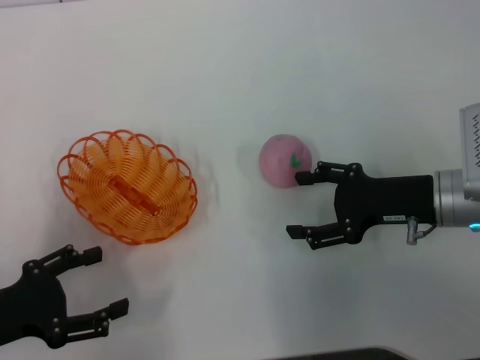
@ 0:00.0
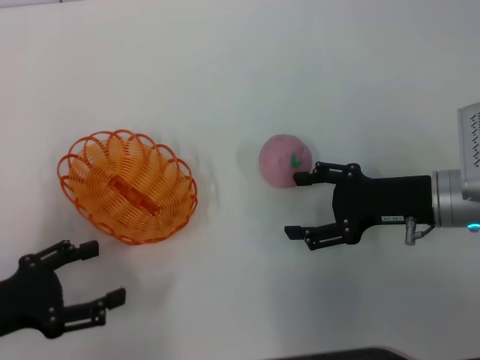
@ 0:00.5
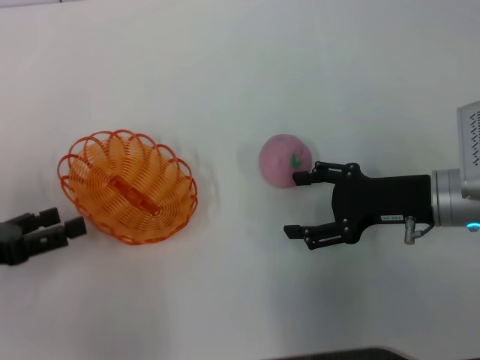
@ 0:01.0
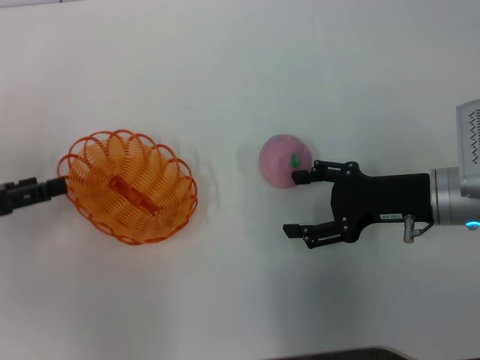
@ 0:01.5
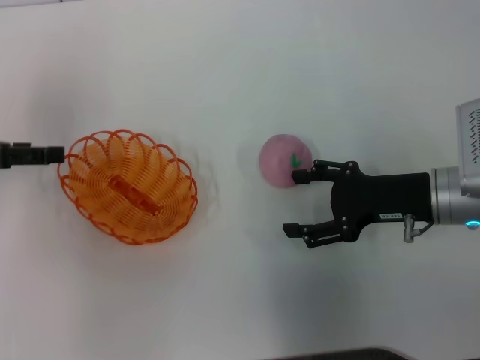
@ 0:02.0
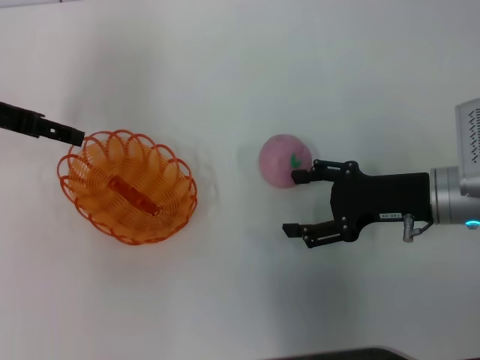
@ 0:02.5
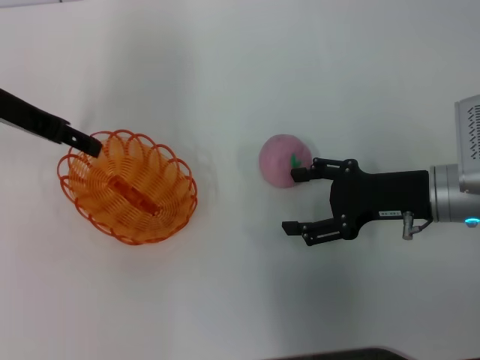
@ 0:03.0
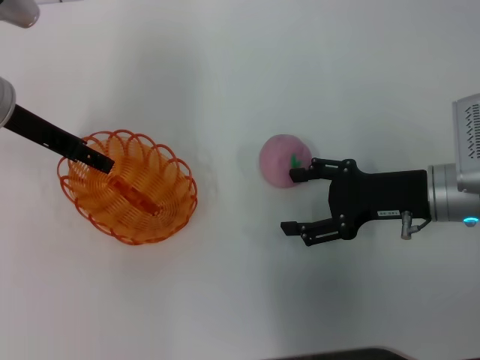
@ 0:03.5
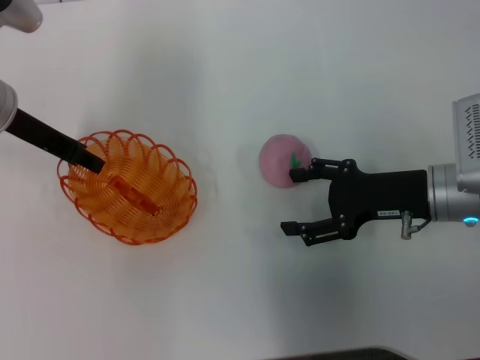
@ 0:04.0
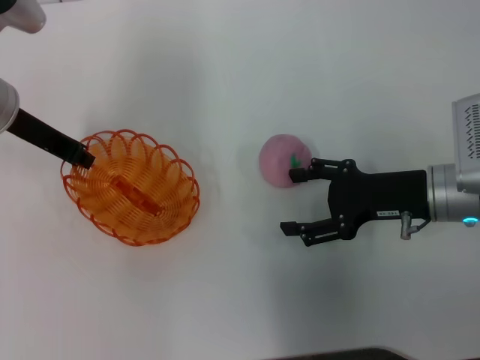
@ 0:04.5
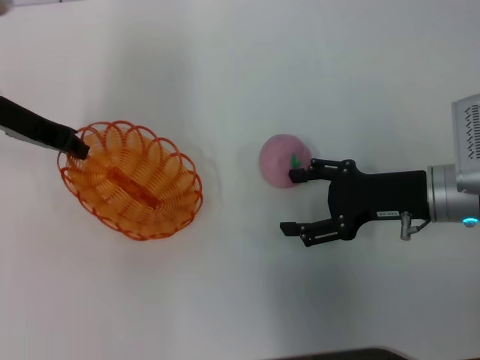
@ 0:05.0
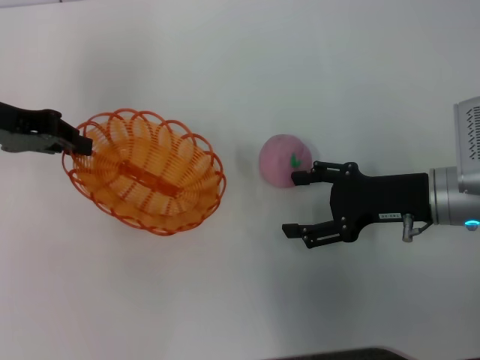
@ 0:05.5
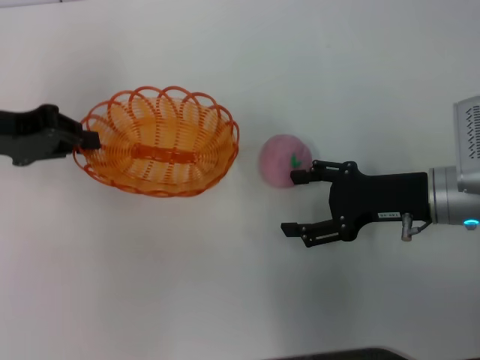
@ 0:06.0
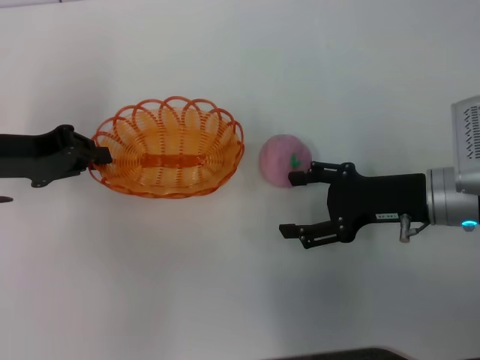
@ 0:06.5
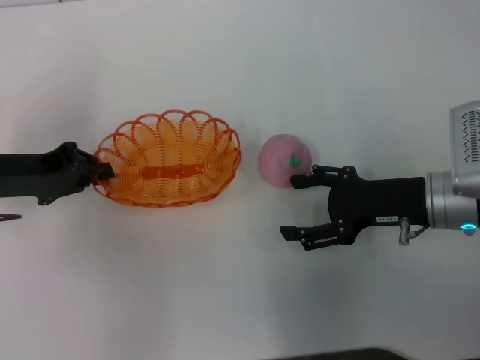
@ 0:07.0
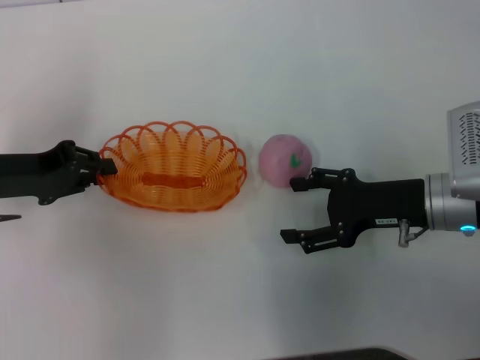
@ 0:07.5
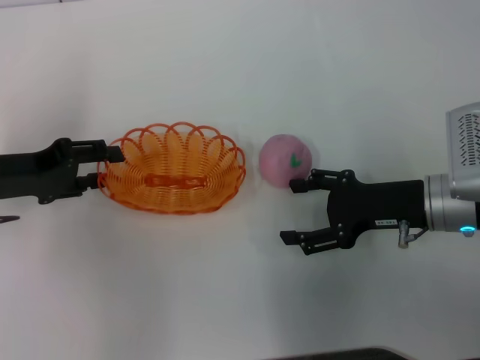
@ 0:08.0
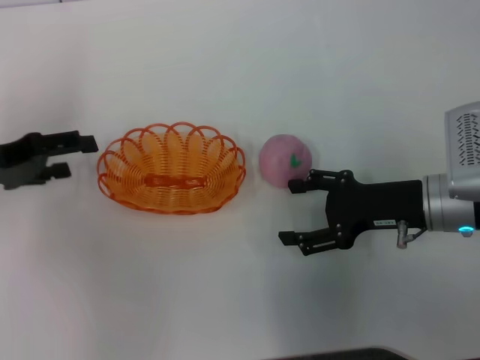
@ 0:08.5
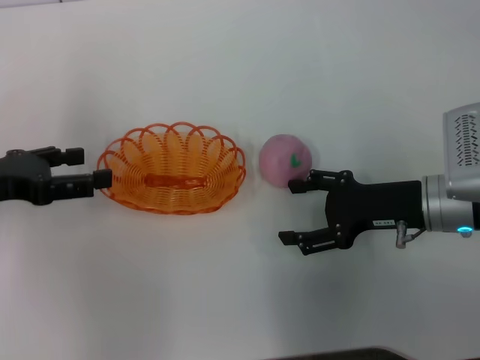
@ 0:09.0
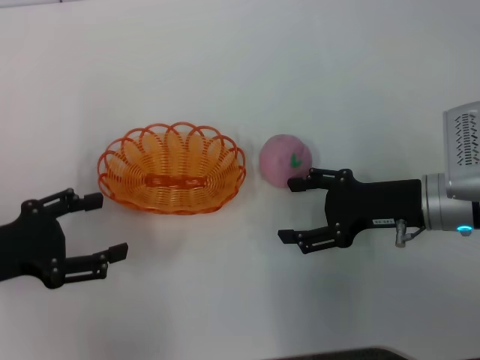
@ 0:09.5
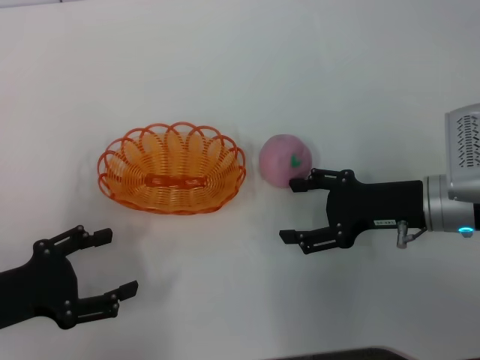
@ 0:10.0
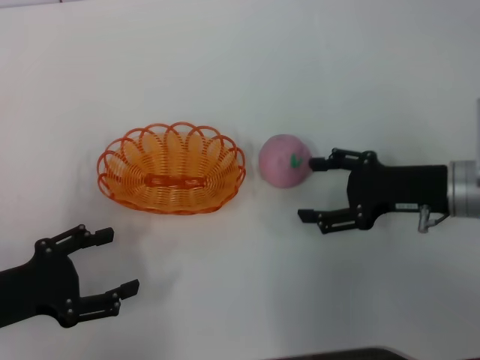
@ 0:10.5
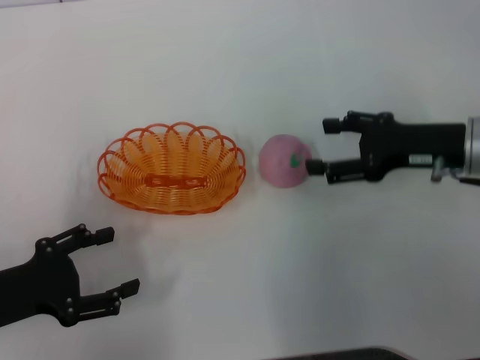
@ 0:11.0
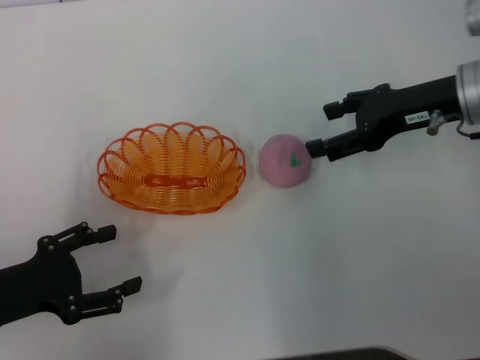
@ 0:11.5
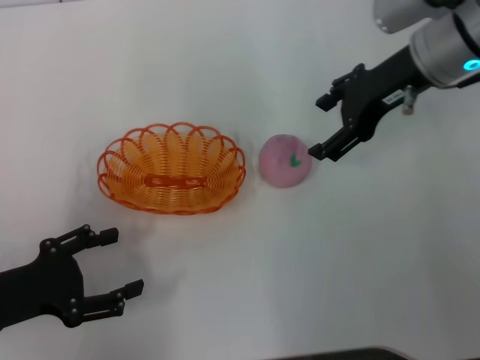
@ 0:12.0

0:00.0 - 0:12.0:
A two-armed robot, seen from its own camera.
Step, 0:00.0 - 0:05.0: Pick up the basket with the left gripper.
Step, 0:05.5 - 0:08.5: Place the basket in the center of view with the left gripper.
0:00.0 - 0:02.0: The left gripper is displaced forward and upward by roughly 15 cm.
0:02.0 - 0:04.0: The left gripper travels to the right and forward by approximately 10 cm.
0:04.0 - 0:06.0: The left gripper moves to the left, some 5 cm, and closes up.
0:06.0 - 0:08.0: The left gripper is displaced downward by some 5 cm, and opens.
0:08.0 - 0:10.0: The left gripper shifts approximately 10 cm backward, and opens.
0:10.0 - 0:12.0: The right gripper moves upward and forward, about 15 cm.

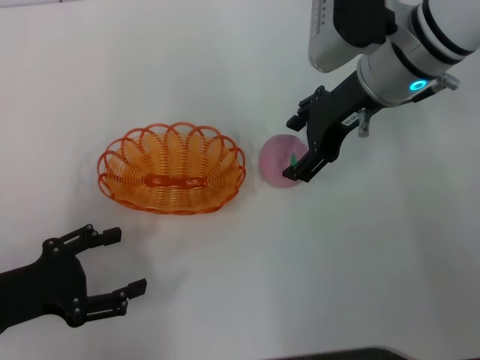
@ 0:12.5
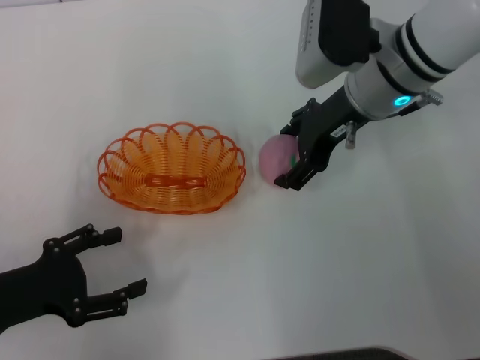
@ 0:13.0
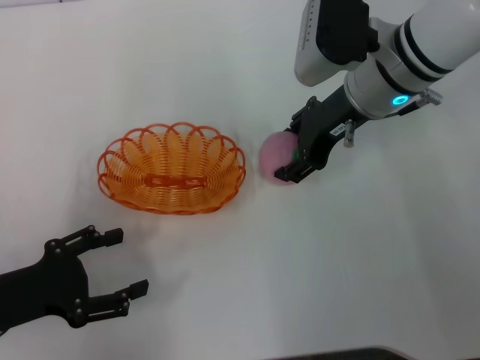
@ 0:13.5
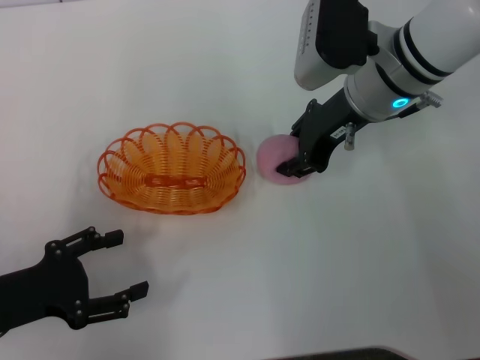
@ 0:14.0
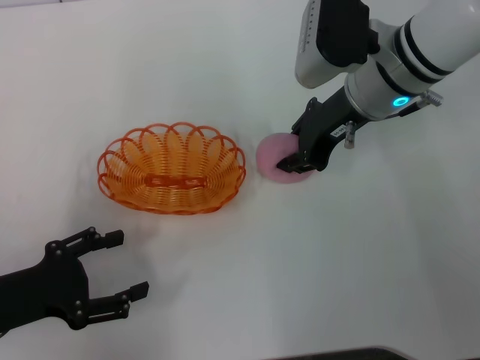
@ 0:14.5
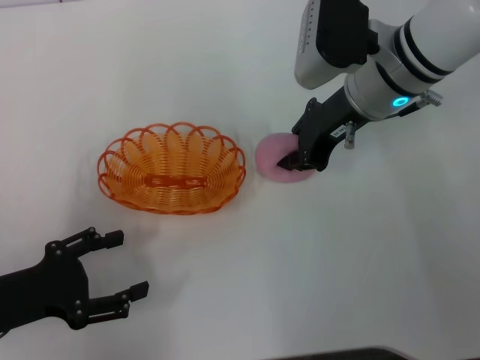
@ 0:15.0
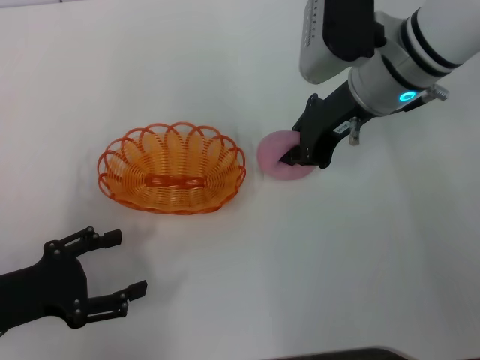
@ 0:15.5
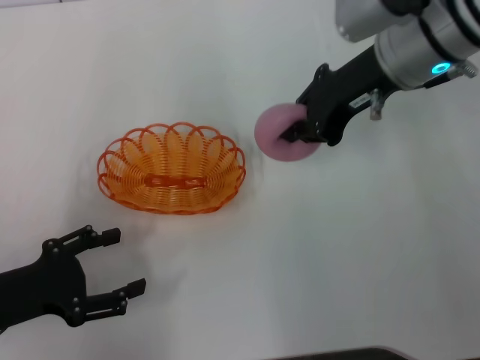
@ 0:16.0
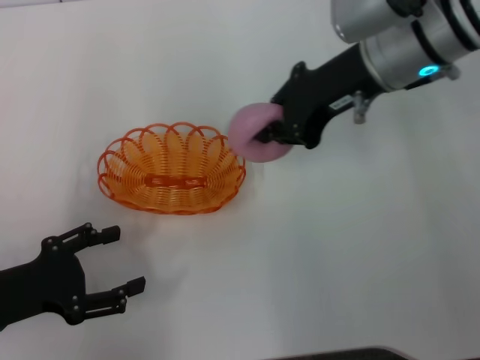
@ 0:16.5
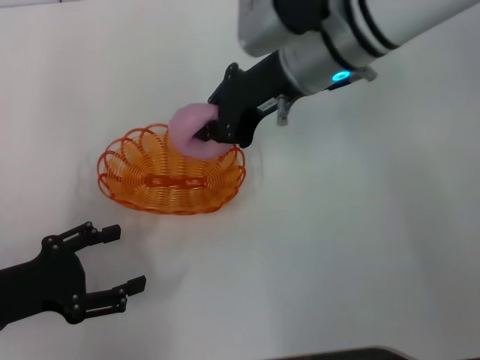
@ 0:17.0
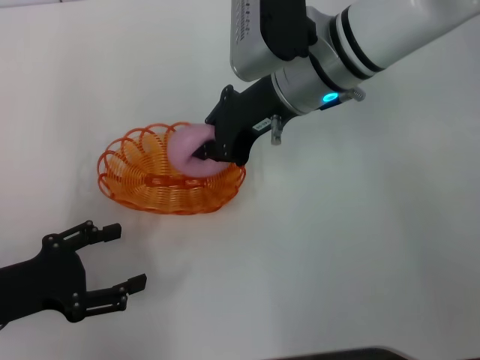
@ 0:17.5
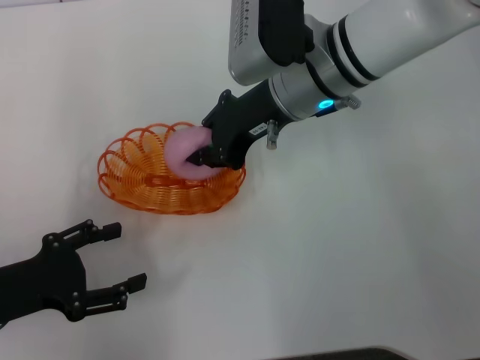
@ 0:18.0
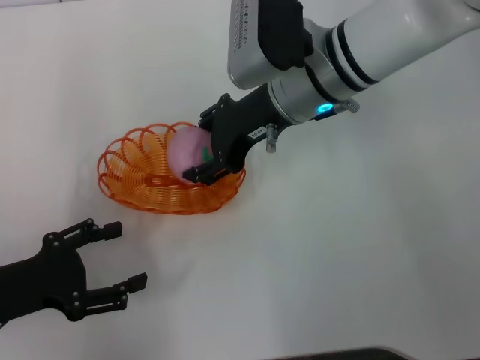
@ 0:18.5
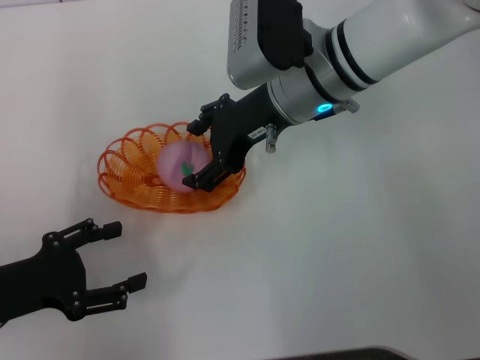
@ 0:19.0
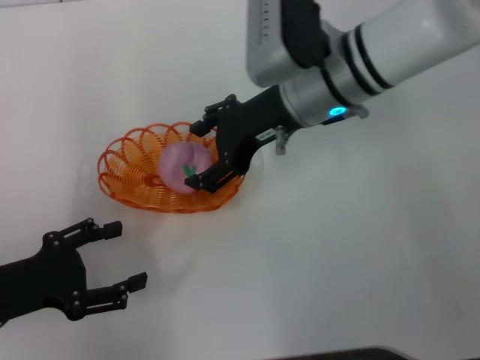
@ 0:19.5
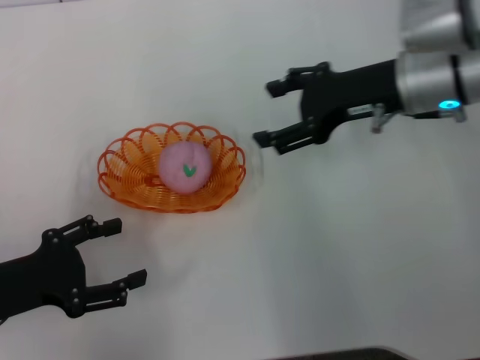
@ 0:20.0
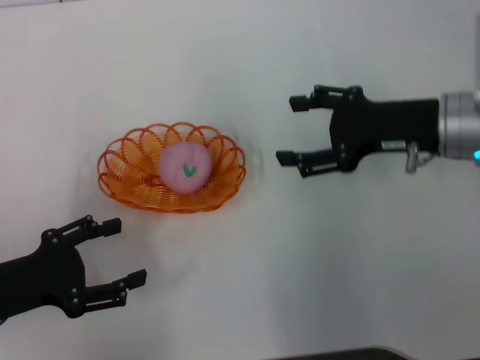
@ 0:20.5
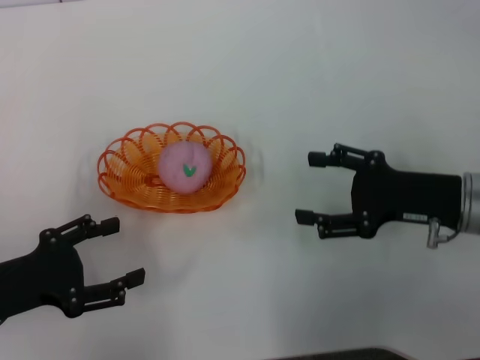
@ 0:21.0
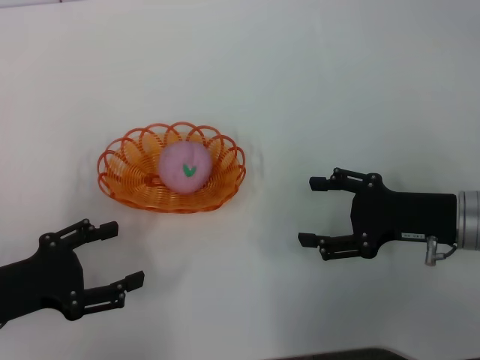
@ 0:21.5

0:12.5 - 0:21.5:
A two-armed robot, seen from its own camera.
Step, 0:12.5 - 0:15.5: Pick up the peach with the right gripper.
Step, 0:16.0 - 0:20.0: Place the peach into the basket with the right gripper.
0:12.5 - 0:14.5: The right gripper closes up.
0:14.5 - 0:17.0: The right gripper is displaced to the left by approximately 5 cm.
0:17.0 - 0:19.5: The right gripper opens its fingers.
0:19.5 - 0:21.5: The right gripper moves to the right, backward and downward, about 20 cm.

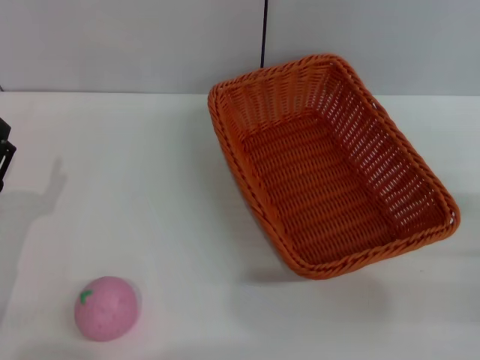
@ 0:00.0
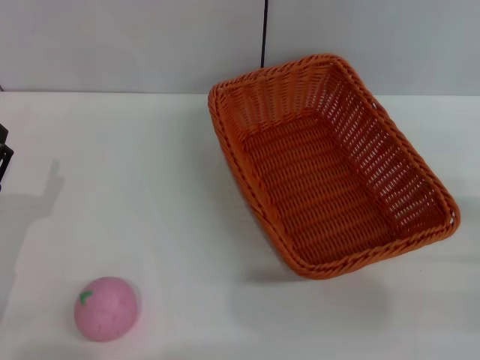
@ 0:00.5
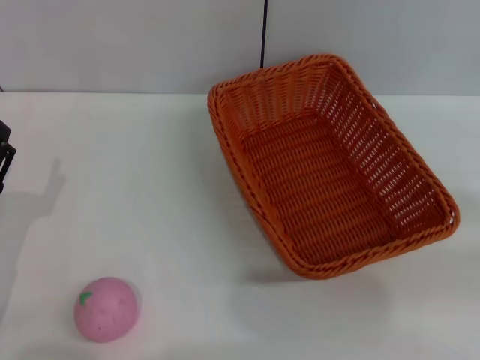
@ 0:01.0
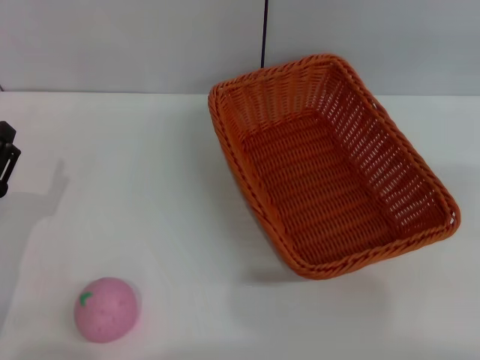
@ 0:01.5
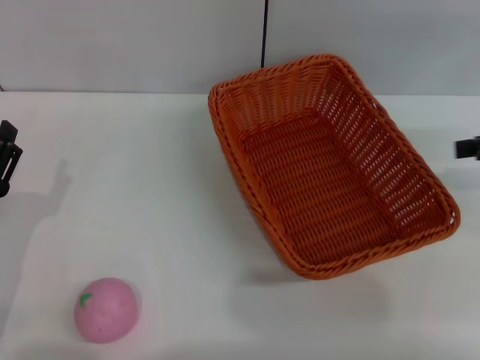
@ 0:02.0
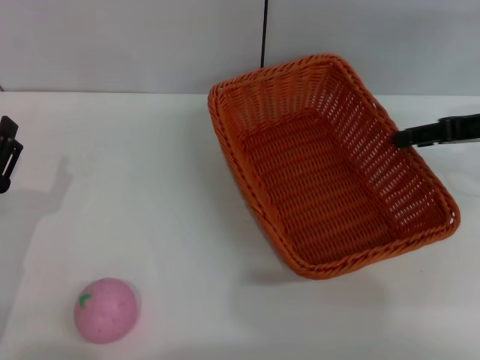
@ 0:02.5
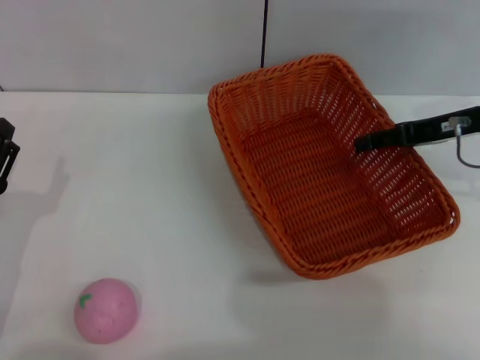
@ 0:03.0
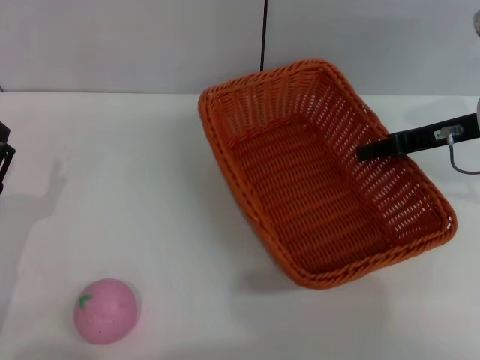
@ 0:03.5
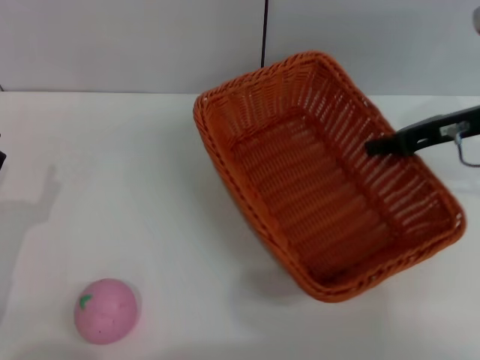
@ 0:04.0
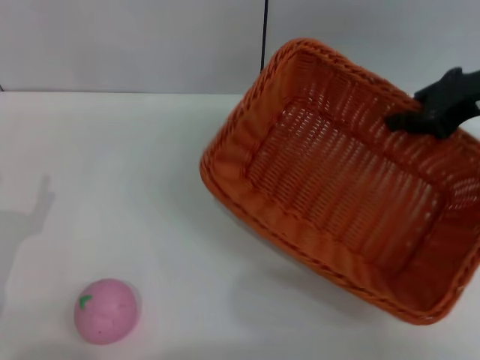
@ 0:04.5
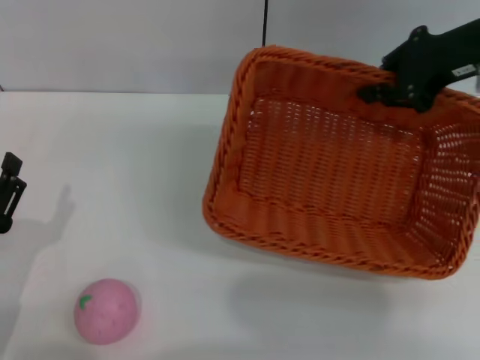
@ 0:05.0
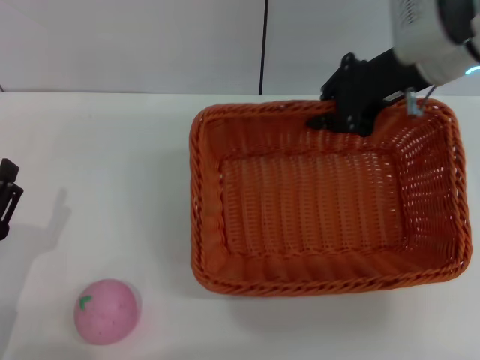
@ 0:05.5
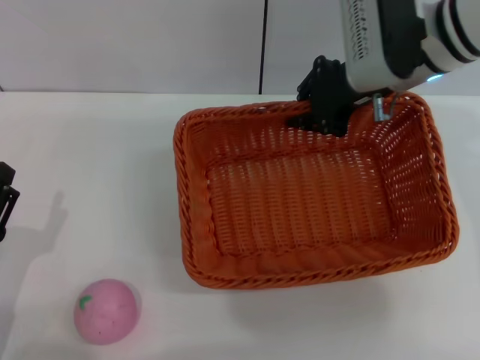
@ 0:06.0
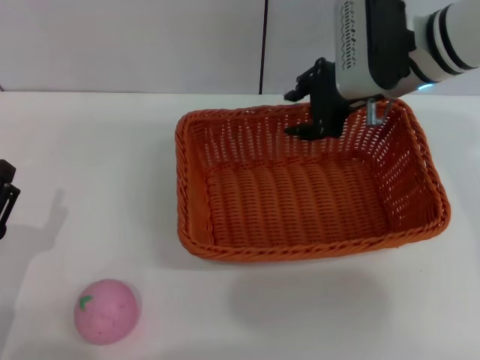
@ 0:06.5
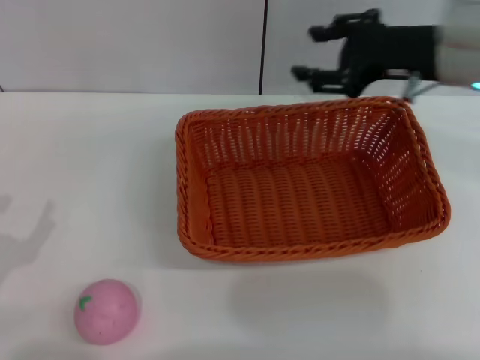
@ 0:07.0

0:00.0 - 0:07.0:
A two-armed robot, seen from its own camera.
Step, 0:00.0 - 0:04.0: Pick up the light basket with the right gripper.
Step, 0:04.5 - 0:06.5: Place the light basket in the center of view with the right gripper.
0:02.0 - 0:03.5: The right gripper heads to the left, forward and downward, covering approximately 10 cm.
0:03.5 - 0:05.0: The right gripper is displaced upward by some 10 cm, and closes up.
0:05.0 - 0:07.0: The right gripper opens.
